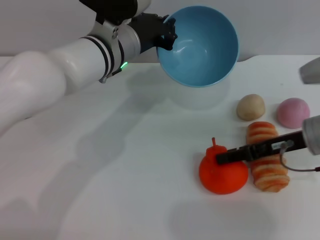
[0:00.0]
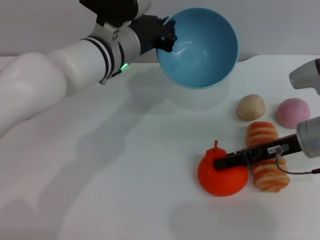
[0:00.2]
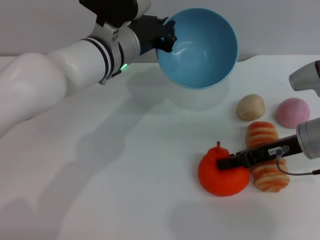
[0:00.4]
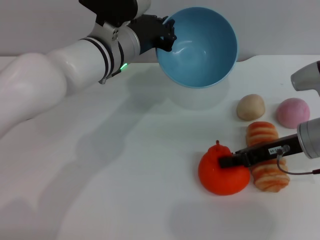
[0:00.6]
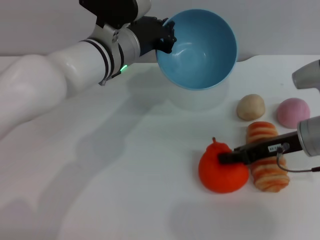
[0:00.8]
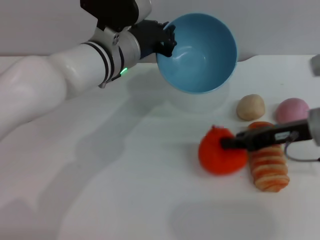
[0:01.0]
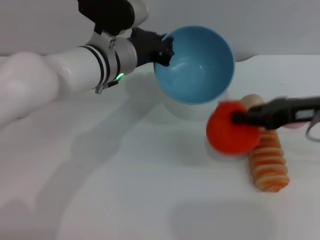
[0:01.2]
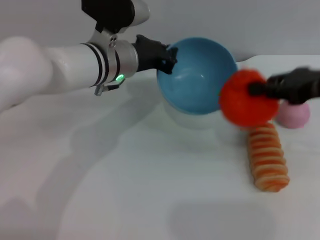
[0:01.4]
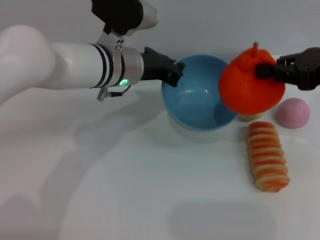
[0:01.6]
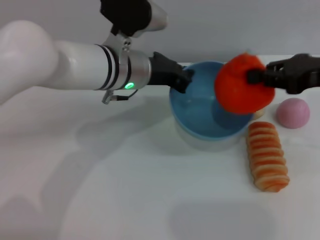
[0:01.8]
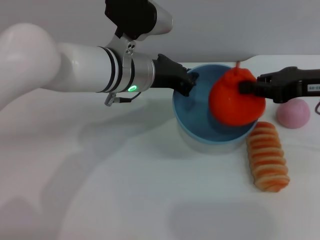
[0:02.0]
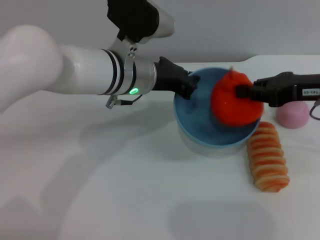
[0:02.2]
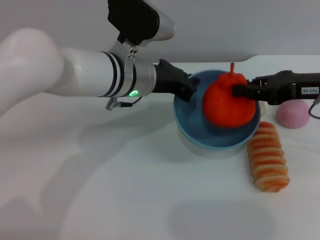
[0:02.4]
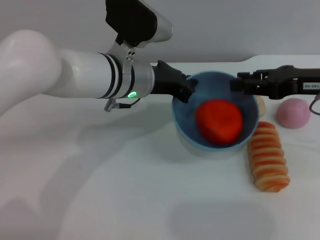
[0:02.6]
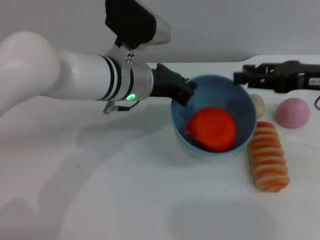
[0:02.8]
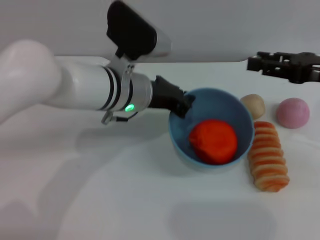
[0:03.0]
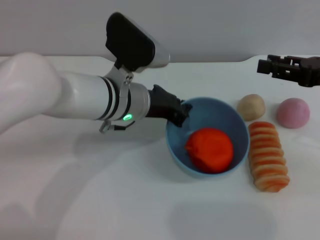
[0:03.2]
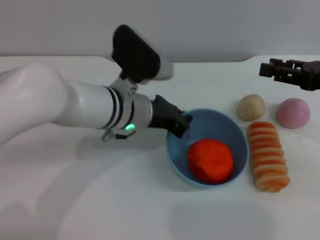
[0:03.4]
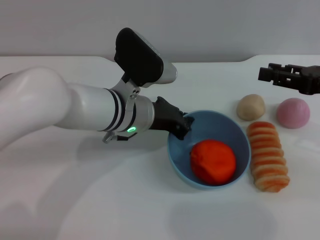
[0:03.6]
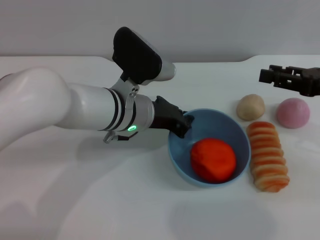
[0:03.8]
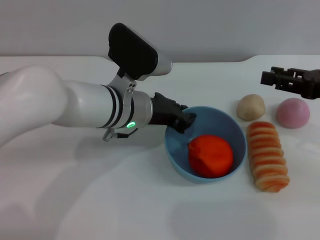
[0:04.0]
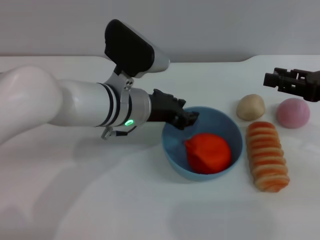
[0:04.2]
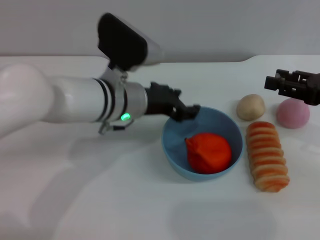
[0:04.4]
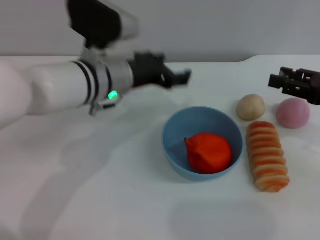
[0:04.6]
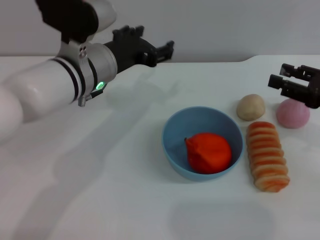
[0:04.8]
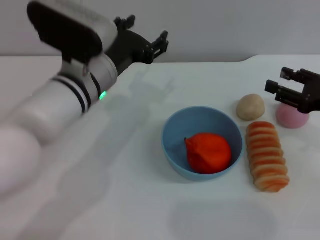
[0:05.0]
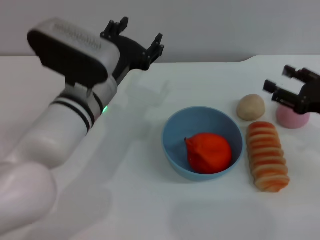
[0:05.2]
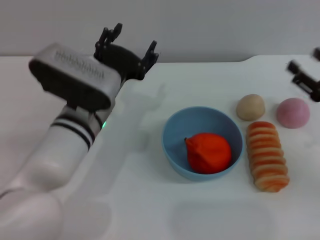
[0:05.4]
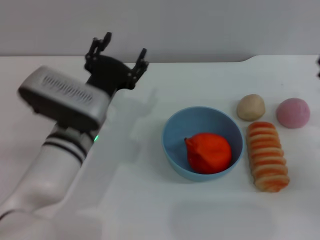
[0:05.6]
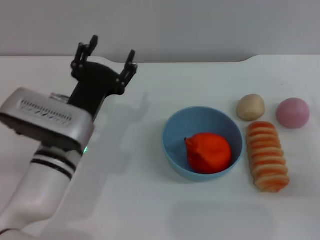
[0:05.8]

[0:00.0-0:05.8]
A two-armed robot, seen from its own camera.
Task of the whole recording: put the orange into the blue bowl and pour it out repeatedly.
Step, 0:00.0 to 0:01.0: Pick up the orange with the right gripper.
Step, 0:01.2 to 0:02.8: Place the orange into the bowl.
Step, 0:03.0 to 0:04.6: Place the bowl on the table.
0:00.0 to 0:01.4: The right gripper shifts some 10 cm upward, and closes.
0:01.4 to 0:02.8: The right gripper opens up.
0:02.8 to 0:04.4: The left gripper opens. Meanwhile the right gripper shifts by approximately 5 cm.
0:04.4 to 0:05.8: The left gripper moves backward, downward and to the left, about 10 cm, and opens its fingers. The right gripper shifts approximately 10 cm downward.
